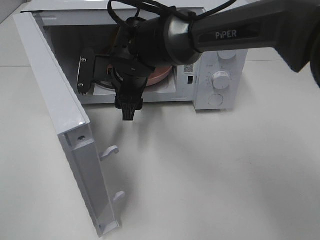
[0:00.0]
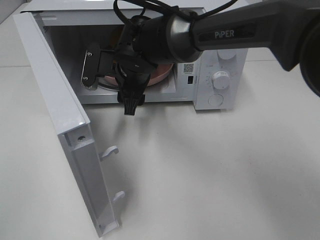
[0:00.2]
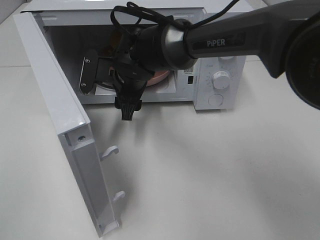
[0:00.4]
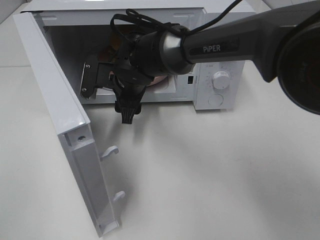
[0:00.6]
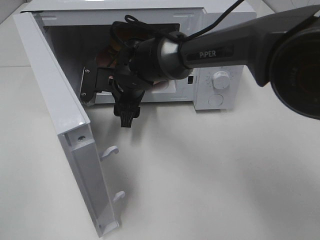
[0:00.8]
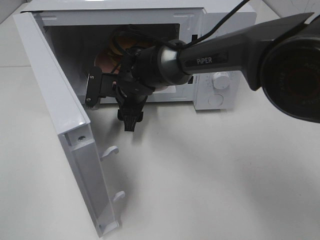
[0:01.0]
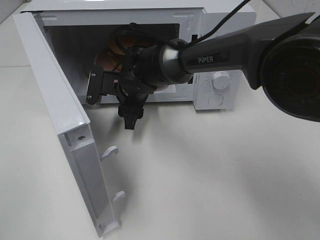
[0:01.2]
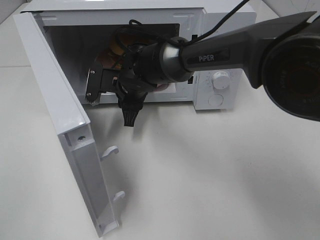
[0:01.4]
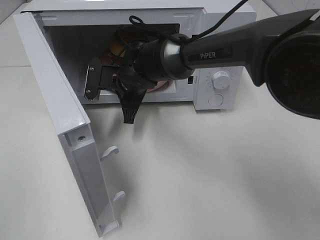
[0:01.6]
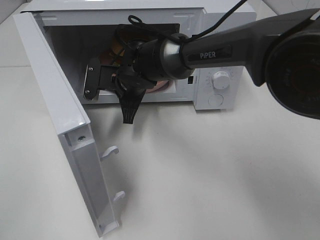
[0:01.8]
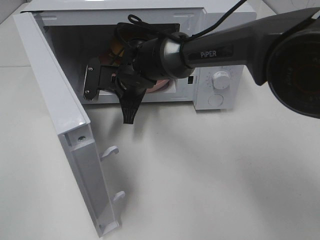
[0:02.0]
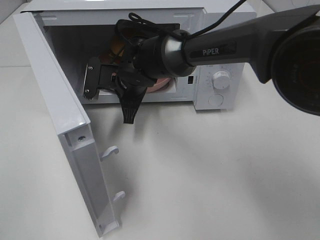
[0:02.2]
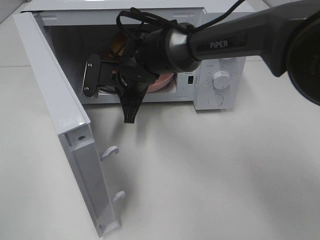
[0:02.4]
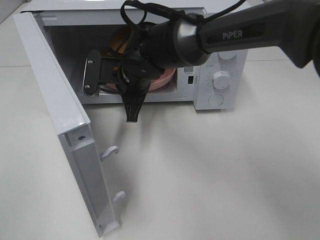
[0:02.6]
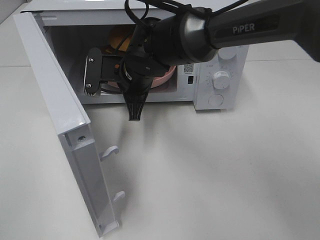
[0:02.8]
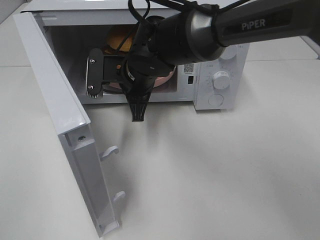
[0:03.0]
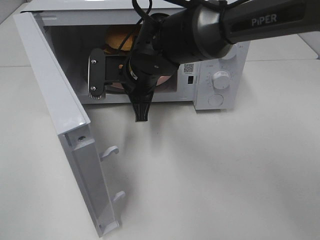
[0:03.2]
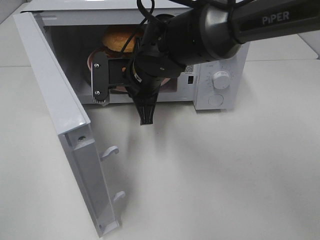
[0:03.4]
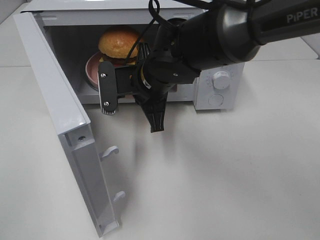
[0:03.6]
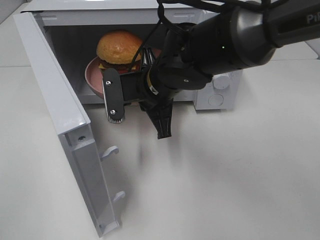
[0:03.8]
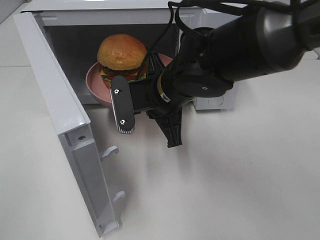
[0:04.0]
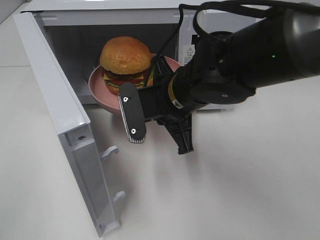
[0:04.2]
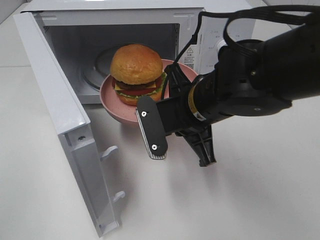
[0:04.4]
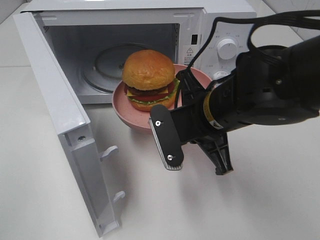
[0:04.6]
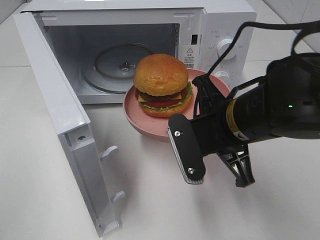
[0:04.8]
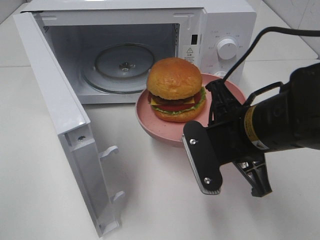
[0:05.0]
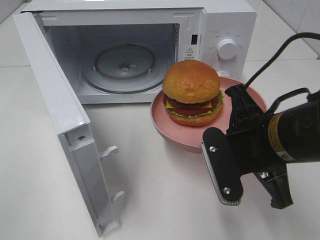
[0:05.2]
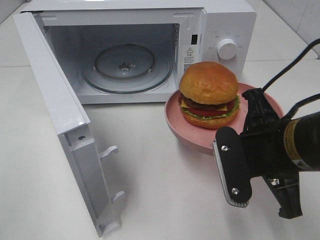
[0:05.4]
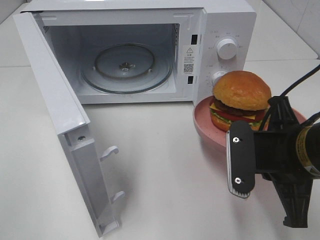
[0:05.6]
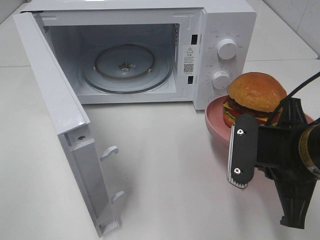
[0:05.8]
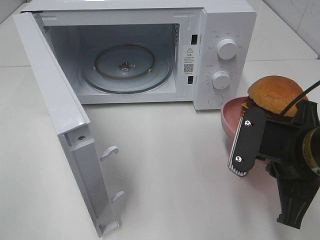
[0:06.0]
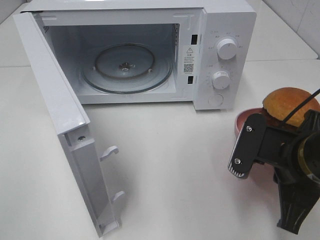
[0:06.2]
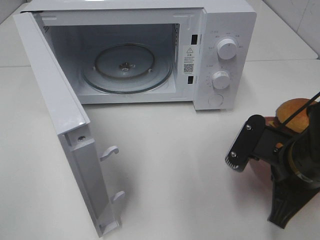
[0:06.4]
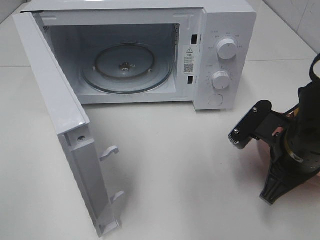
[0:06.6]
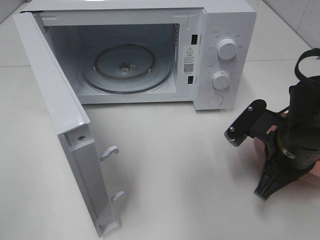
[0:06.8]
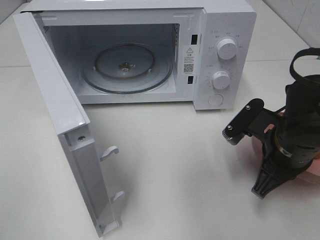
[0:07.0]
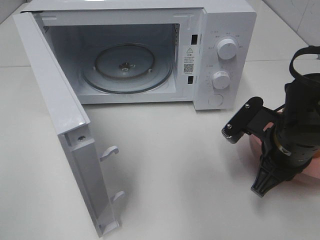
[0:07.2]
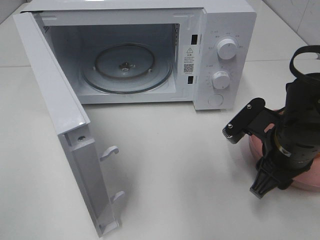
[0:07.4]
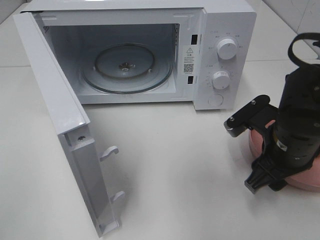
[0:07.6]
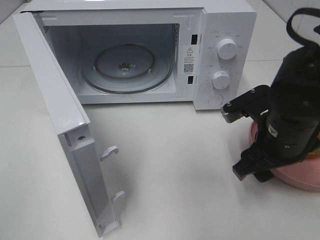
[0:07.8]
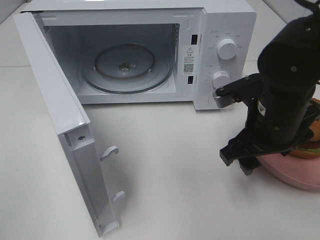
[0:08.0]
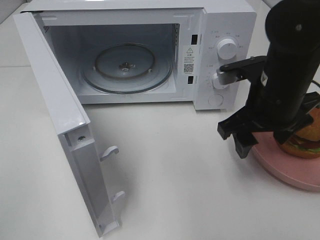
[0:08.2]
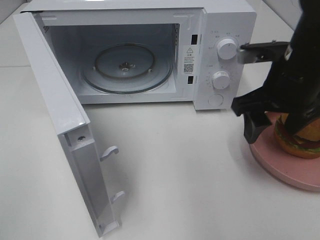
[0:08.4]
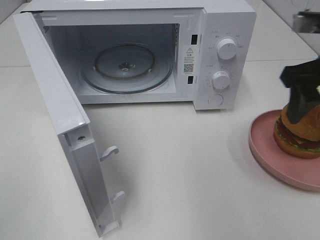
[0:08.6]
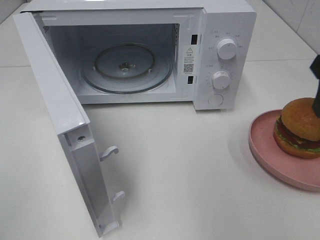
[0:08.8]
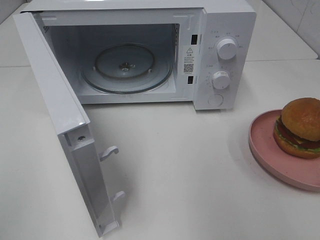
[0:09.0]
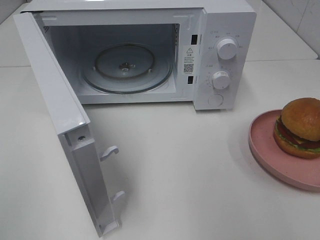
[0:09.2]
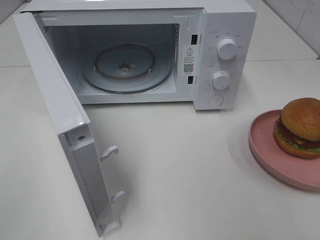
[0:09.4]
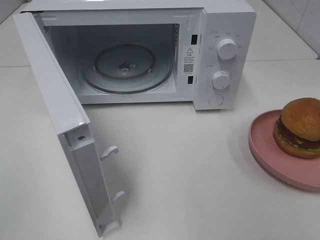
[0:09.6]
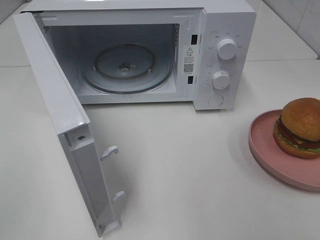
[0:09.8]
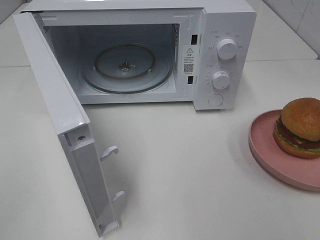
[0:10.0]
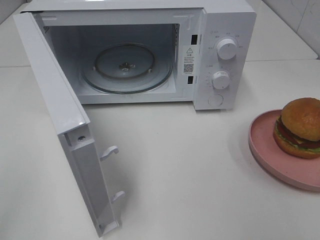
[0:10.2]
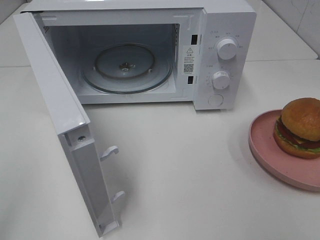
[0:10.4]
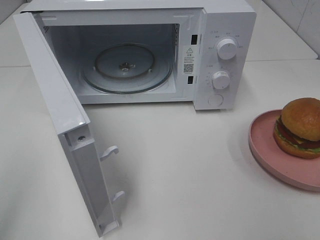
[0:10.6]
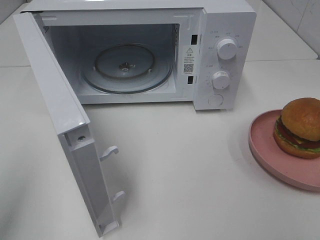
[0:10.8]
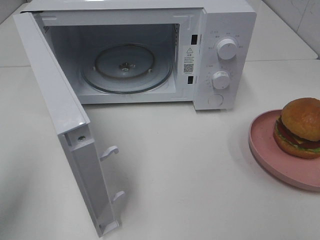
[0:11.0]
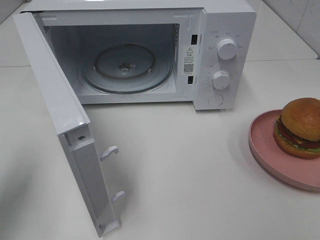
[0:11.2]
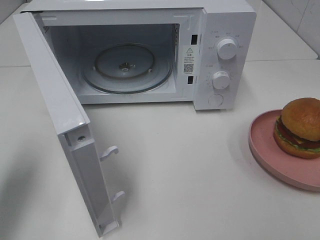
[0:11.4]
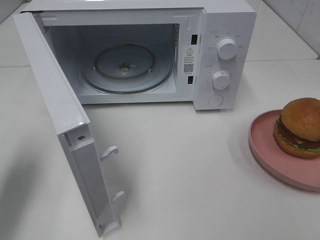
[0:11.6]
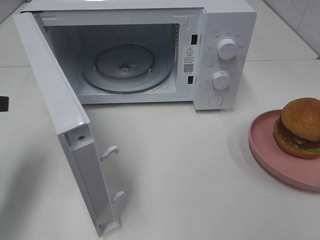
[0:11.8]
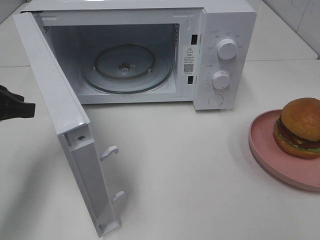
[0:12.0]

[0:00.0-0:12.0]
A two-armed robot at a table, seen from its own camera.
Task of the whole recording: Heat the burger.
Step, 0.0 to 2.0 s: Right hand: grab the plate with the hamburger.
Step, 2.2 to 7.2 s: Right hand: place the plate on the table.
0.0 to 1.6 s: The right gripper ends up about 5 cm from where it was, and closes its fingers.
1.6 to 3.0 s: The right gripper heads upward, covering roughly 5 cm.
3.0 to 4.4 s: The right gripper heads backward and to the right, covering approximately 15 cm.
4.4 to 6.0 s: The right gripper shifts roughly 15 cm to the right and backward.
6.0 to 7.6 s: The right gripper moves forward, roughly 5 cm, and opens its fingers.
7.6 to 9.0 s: The right gripper goes approximately 25 cm upward and to the right.
10.4 to 12.0 s: The left gripper is displaced forward and downward by roughly 25 cm.

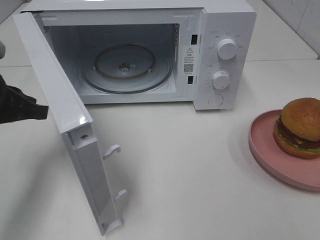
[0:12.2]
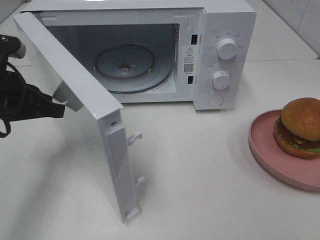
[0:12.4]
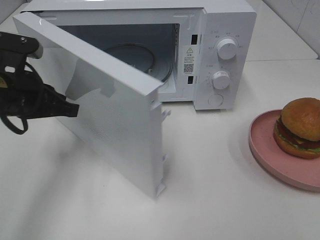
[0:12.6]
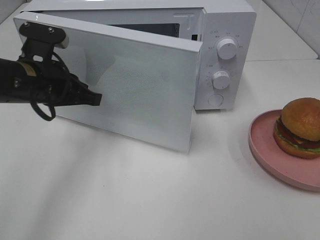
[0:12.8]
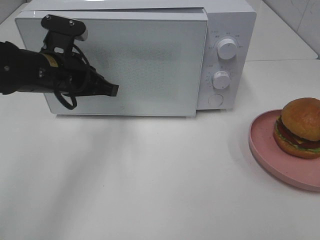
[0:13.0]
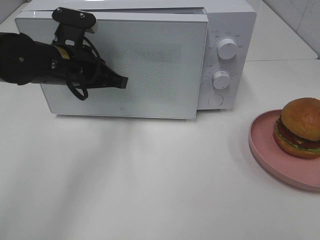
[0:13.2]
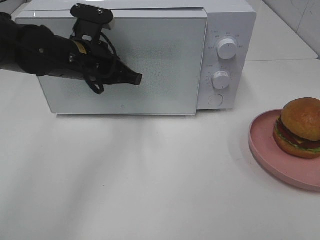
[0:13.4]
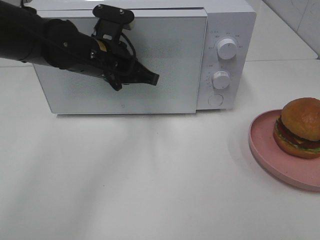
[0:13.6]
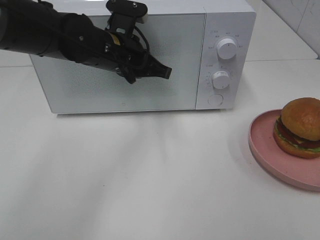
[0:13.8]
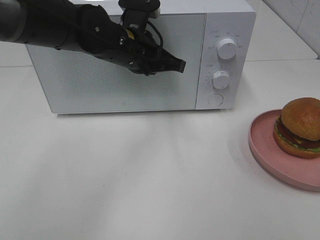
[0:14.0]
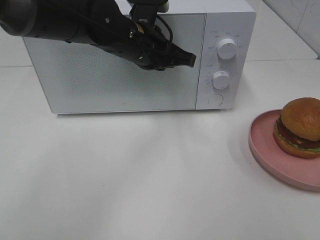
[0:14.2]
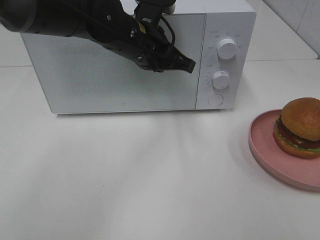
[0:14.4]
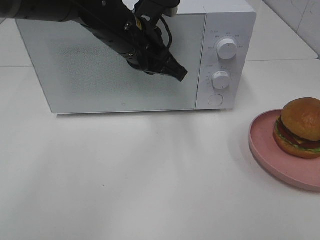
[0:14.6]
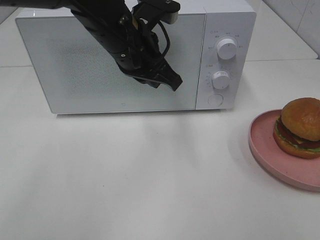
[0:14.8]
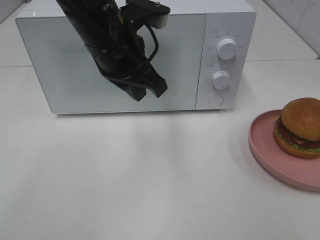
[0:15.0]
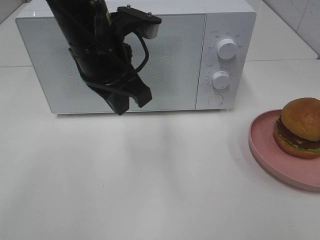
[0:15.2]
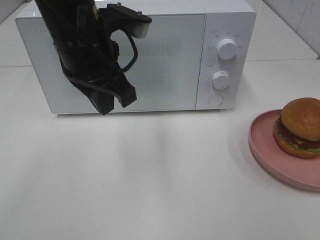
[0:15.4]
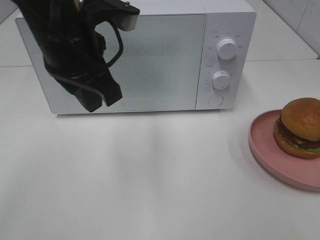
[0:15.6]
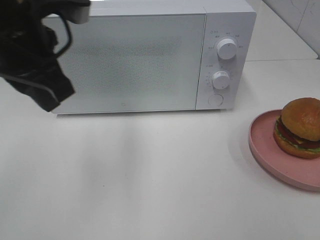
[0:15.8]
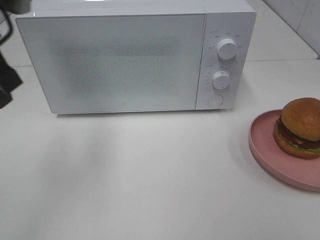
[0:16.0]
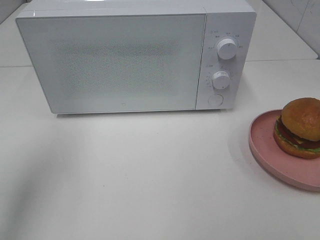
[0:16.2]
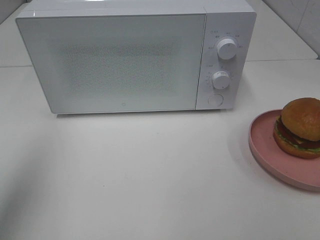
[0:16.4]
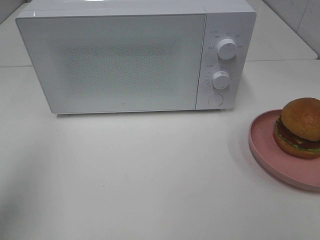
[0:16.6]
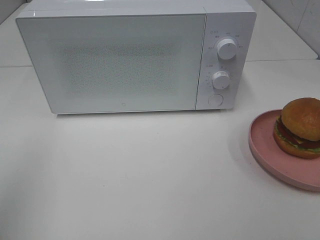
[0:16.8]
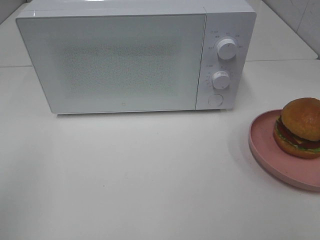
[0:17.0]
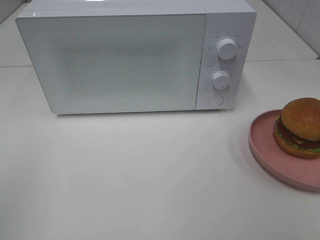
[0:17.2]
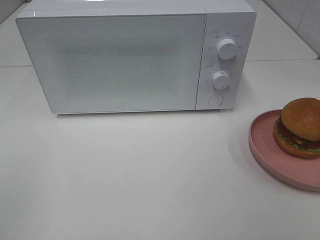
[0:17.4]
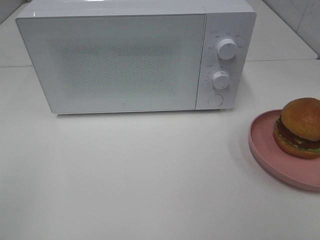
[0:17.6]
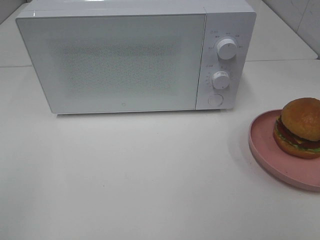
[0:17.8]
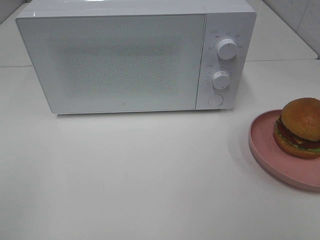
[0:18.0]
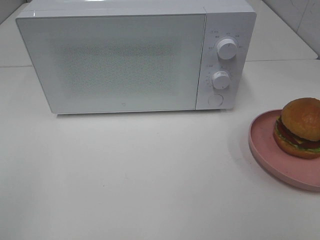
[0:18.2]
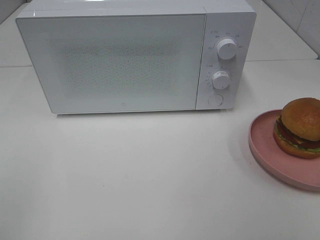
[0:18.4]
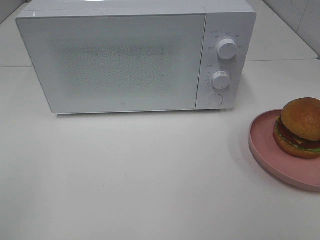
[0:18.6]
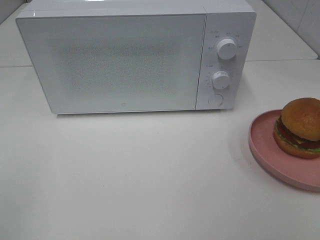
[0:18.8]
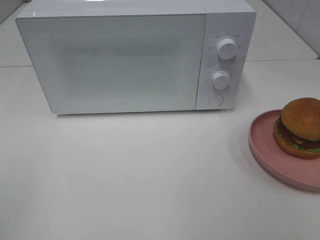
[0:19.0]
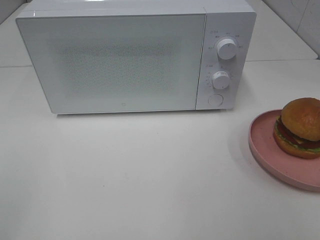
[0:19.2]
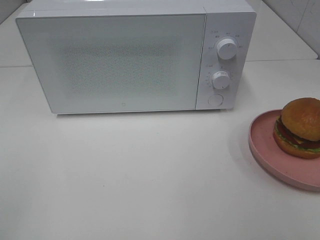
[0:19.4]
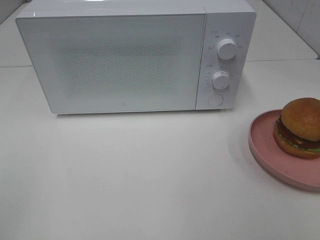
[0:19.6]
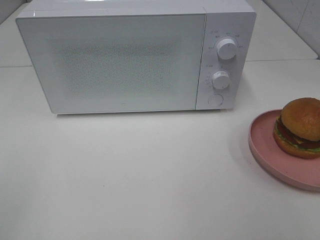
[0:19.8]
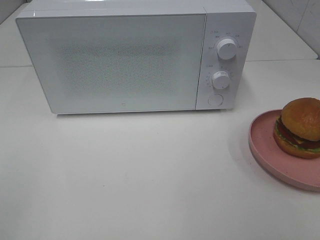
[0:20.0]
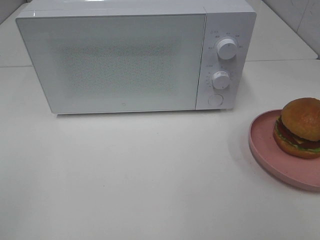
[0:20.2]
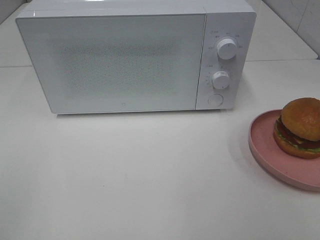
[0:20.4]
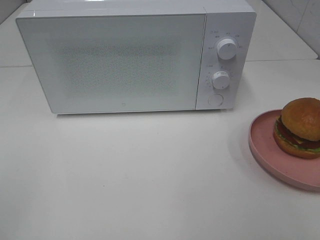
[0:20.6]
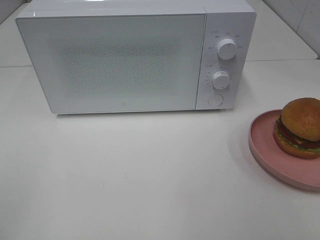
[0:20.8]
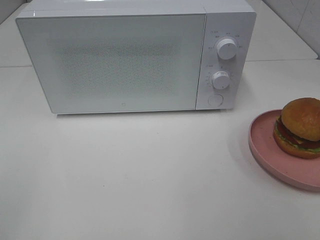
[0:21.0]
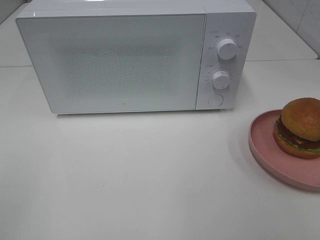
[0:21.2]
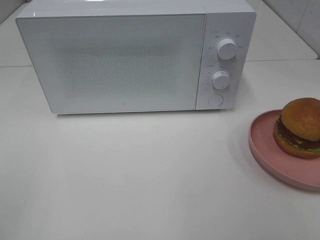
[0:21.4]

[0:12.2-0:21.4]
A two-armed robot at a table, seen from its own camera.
Task of the whole recording: Heat the burger.
Step, 12.2 to 14.4 s: Left hand: close the microwave door.
12.2 to 13.8 s: The left gripper heads to the right and forward, covering some 20 cm.
13.8 to 15.2 s: The left gripper travels backward and upward by approximately 10 cm.
15.2 to 16.8 s: The left gripper moves to the left and backward, about 30 cm.
19.8 to 21.4 s: Both grippers stay about where they are.

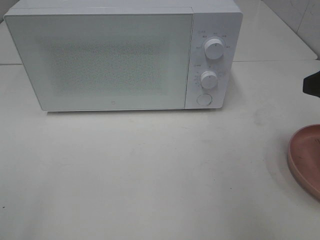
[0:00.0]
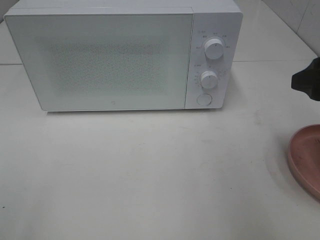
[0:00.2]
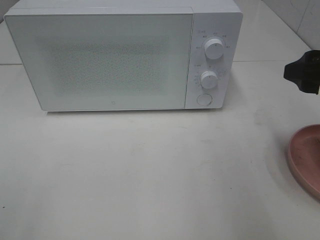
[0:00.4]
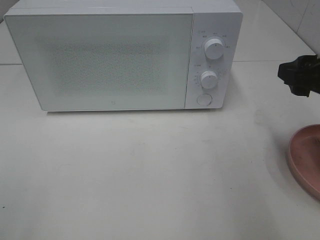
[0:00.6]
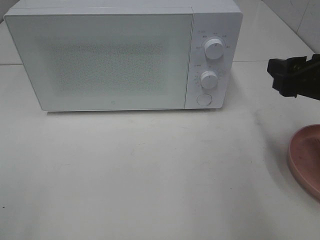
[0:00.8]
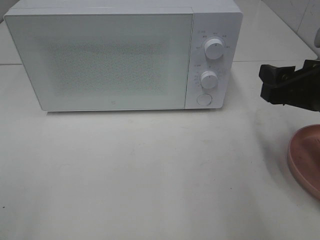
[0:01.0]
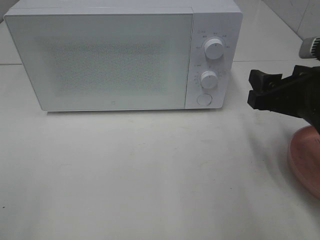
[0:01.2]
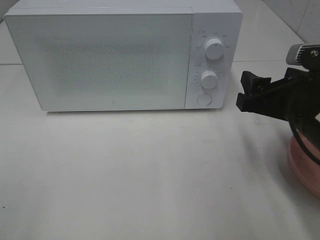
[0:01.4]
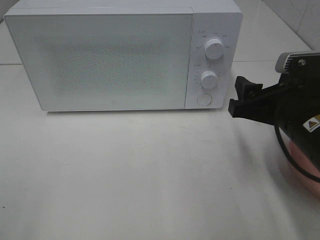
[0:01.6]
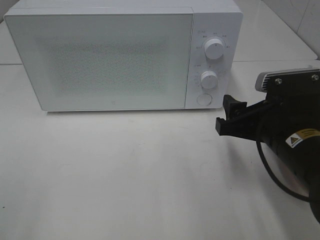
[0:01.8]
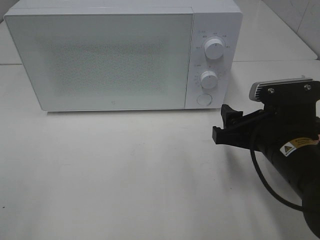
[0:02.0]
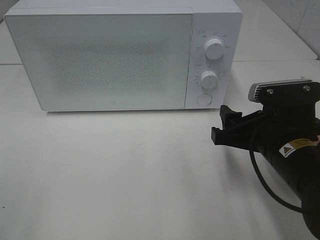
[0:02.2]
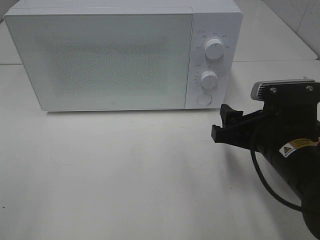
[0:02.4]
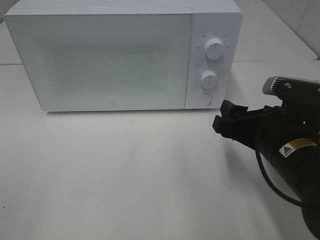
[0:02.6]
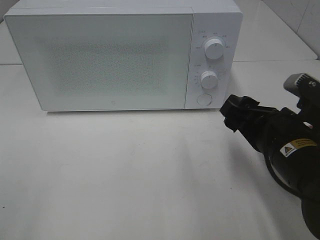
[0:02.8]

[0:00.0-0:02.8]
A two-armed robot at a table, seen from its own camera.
Task of the whole recording: Heat the burger.
0.0 to 1.4 s: The right gripper heads downward and to the left, covering approximately 10 cm.
1.4 to 2.8 s: The right gripper shifts by approximately 5 cm.
